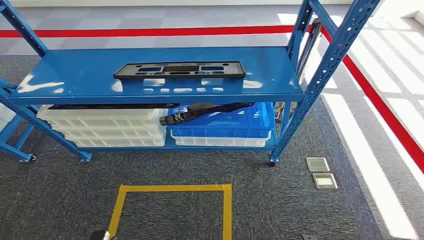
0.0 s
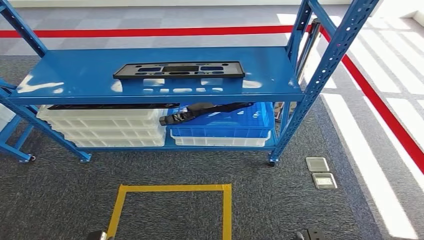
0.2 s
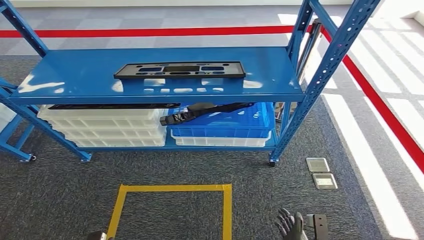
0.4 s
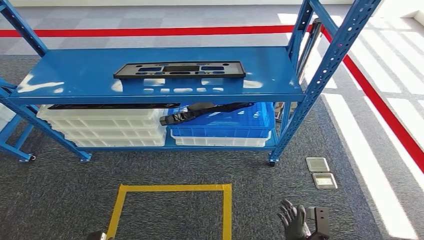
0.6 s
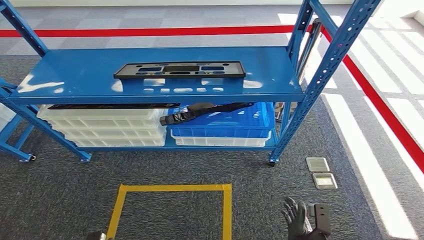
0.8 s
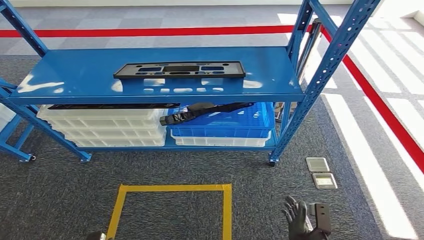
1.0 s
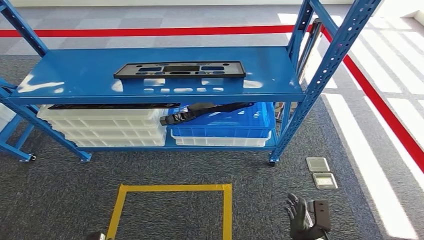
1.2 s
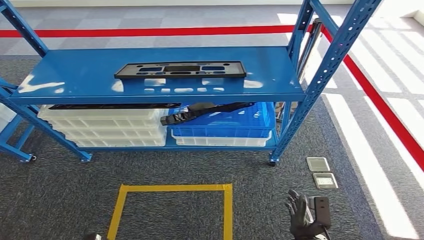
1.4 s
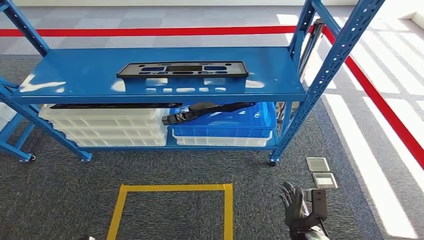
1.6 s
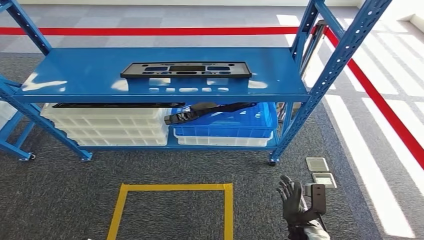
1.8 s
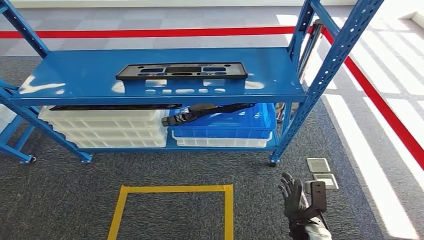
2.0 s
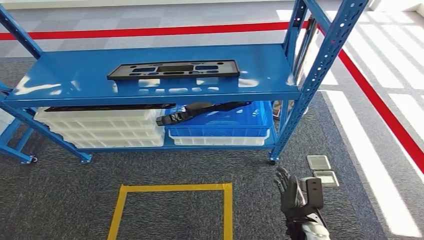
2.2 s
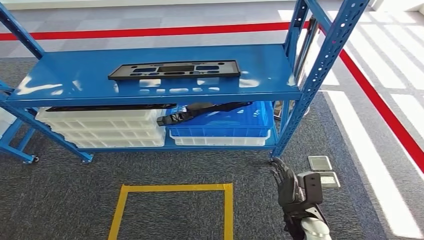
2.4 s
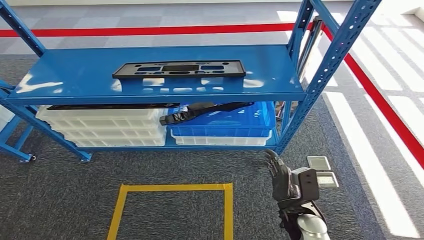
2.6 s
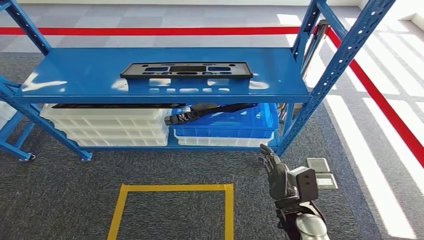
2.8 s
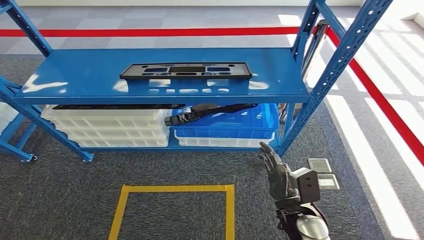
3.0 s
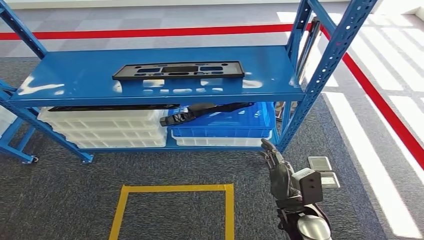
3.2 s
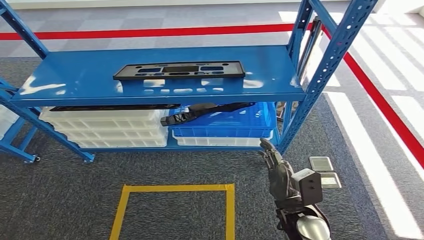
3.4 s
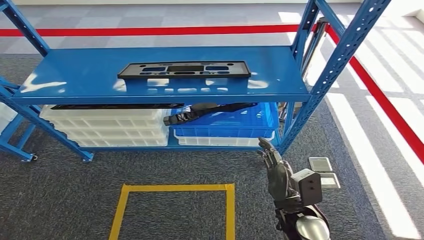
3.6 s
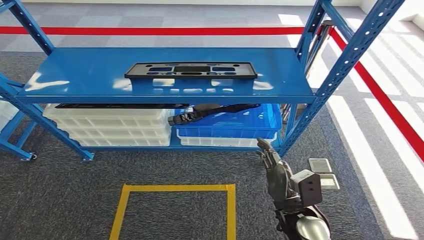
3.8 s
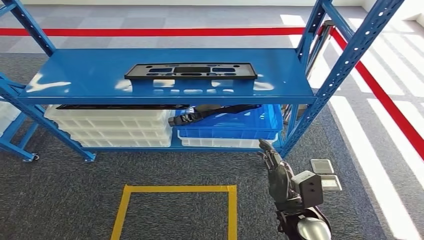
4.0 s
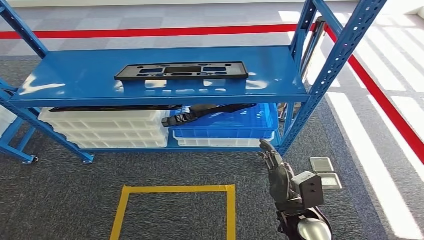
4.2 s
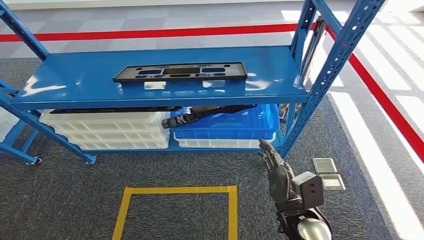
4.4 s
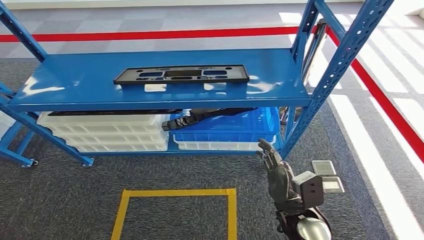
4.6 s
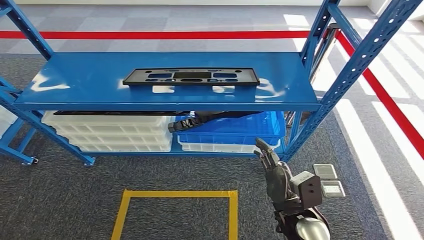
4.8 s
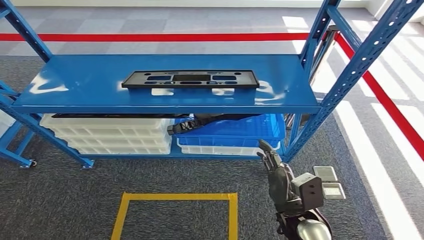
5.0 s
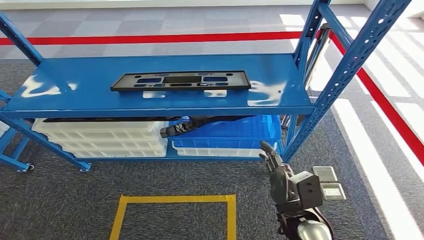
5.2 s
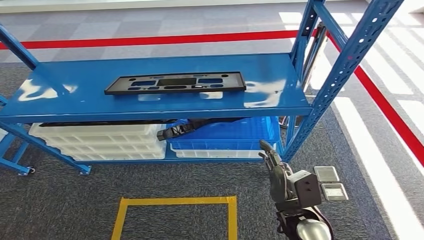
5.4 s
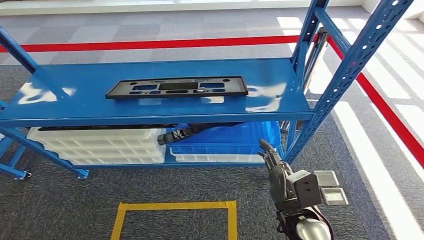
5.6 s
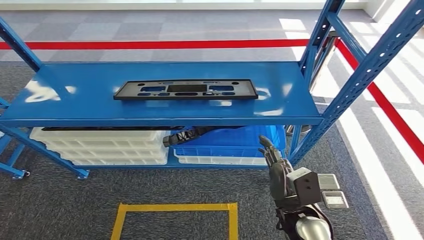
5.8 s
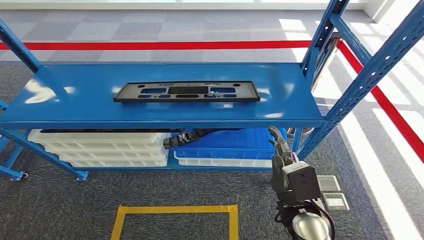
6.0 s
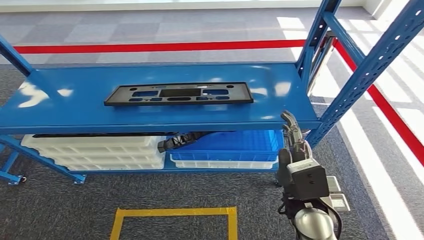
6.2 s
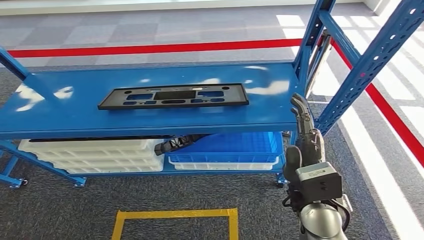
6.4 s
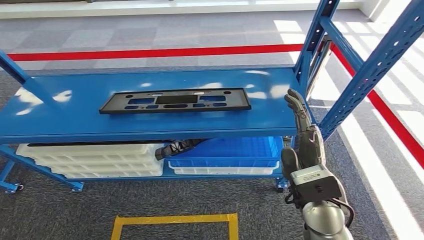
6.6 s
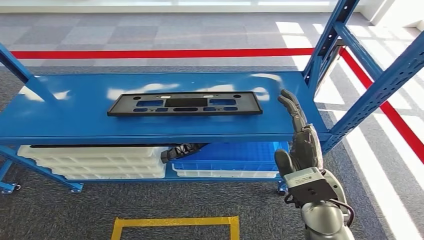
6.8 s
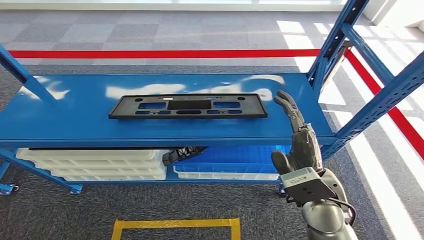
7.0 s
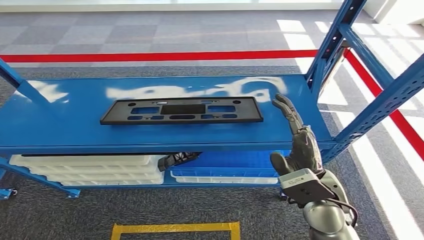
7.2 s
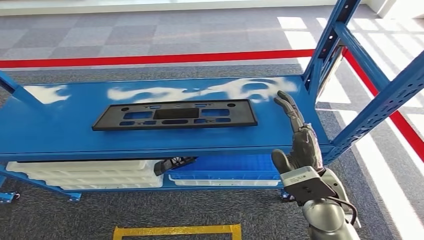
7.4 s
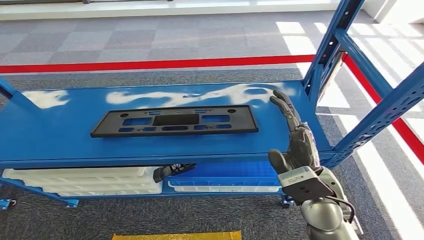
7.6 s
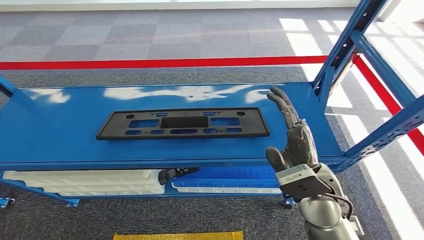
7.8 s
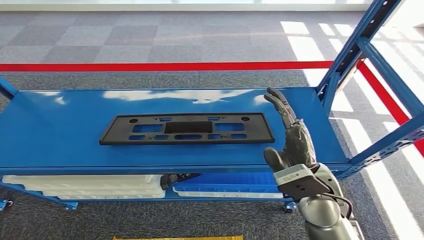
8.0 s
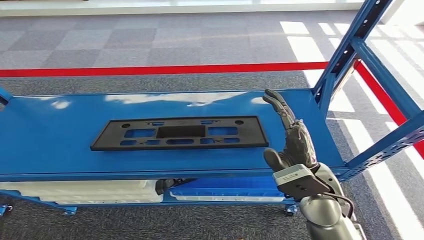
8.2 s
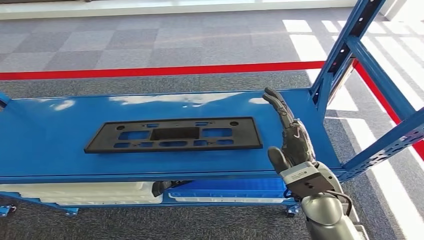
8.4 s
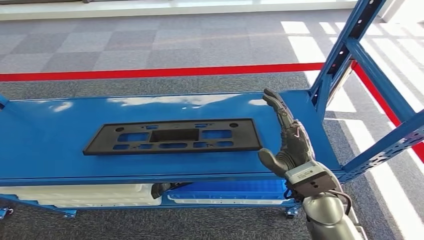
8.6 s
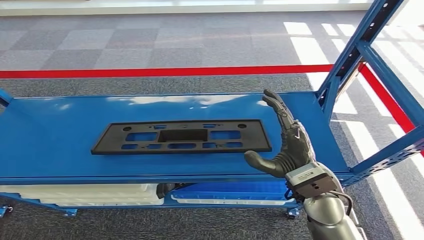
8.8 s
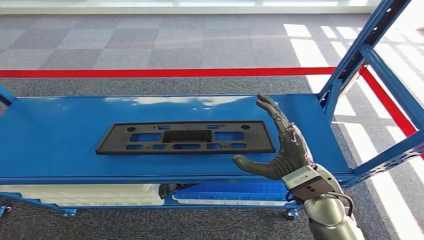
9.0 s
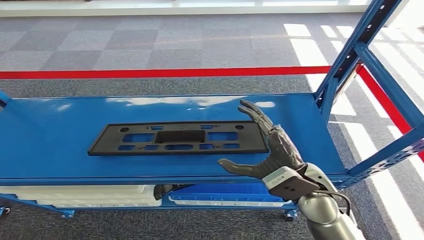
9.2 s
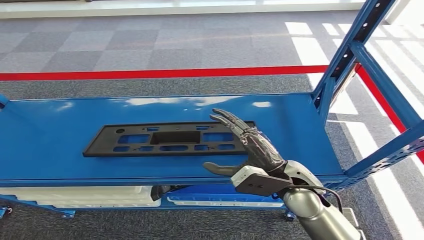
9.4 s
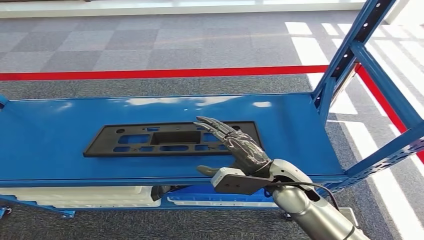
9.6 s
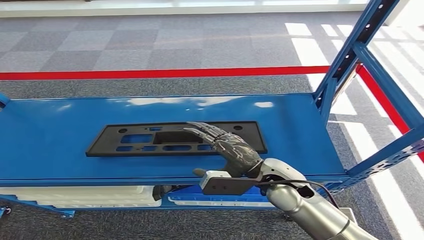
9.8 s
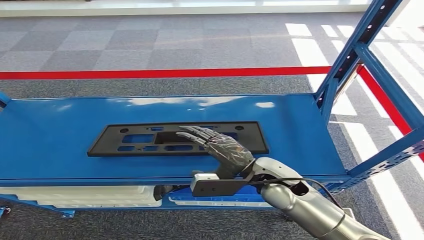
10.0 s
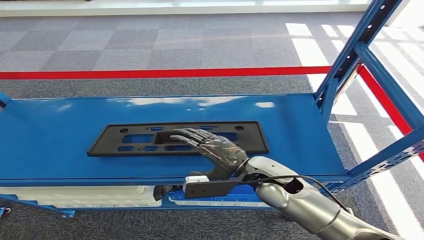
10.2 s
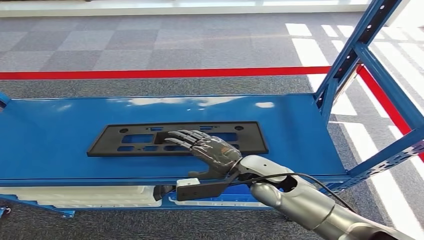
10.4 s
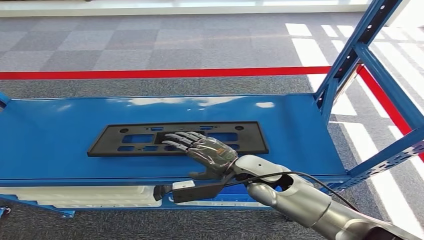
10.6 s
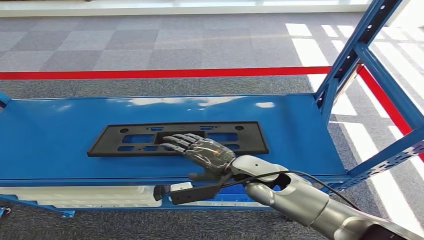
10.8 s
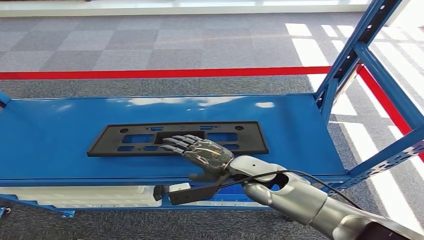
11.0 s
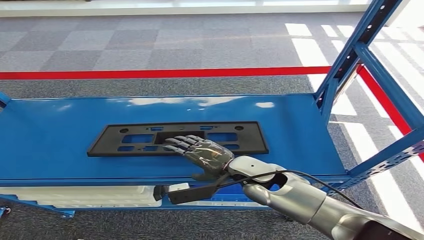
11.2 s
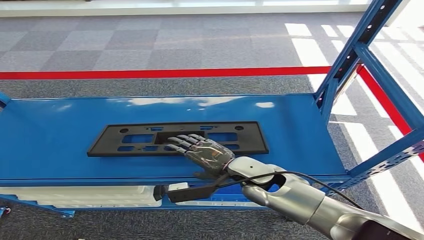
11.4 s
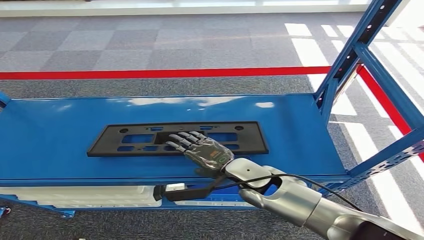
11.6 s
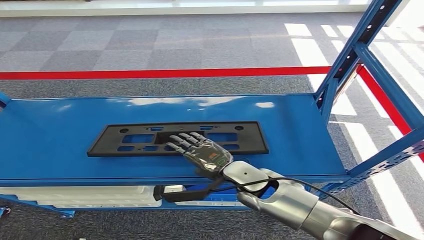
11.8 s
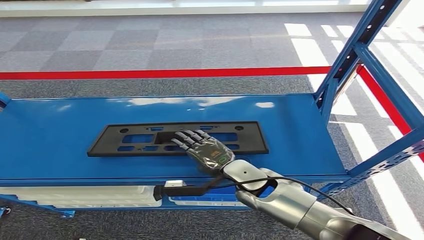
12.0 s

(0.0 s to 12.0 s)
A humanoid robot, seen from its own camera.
1.6 s - 3.0 s: The right hand goes about 15 cm upward.

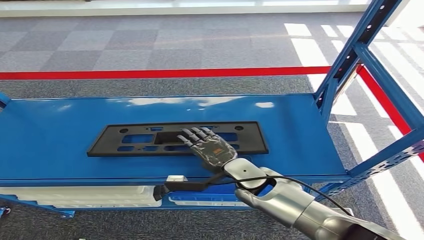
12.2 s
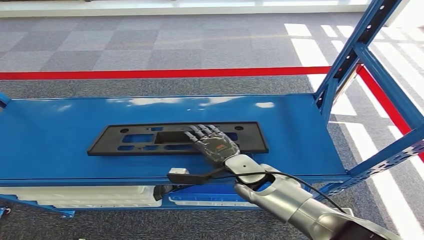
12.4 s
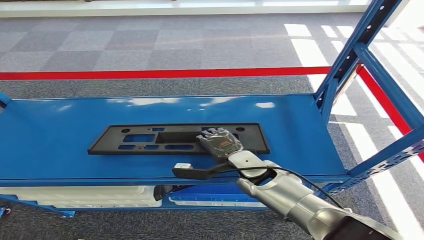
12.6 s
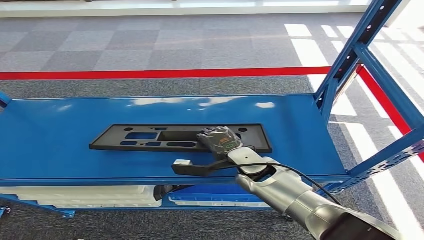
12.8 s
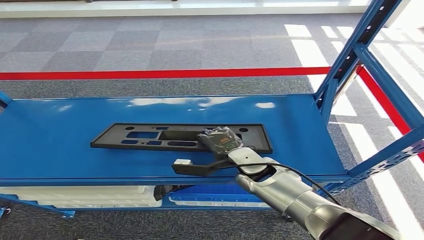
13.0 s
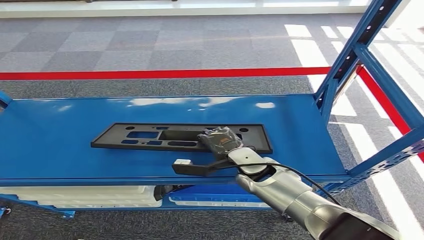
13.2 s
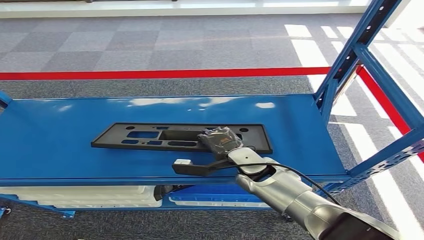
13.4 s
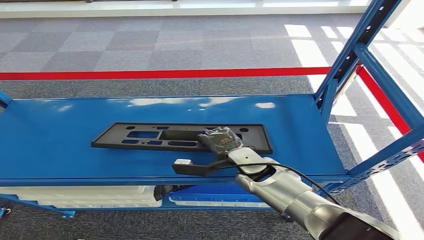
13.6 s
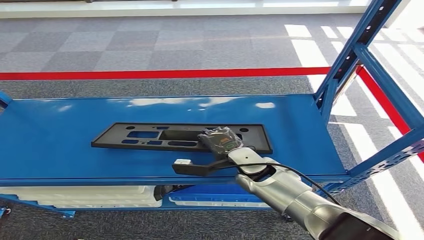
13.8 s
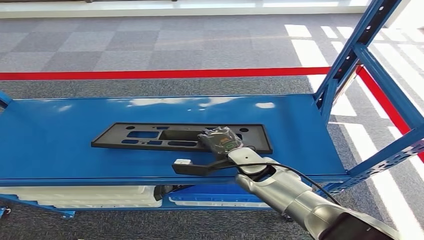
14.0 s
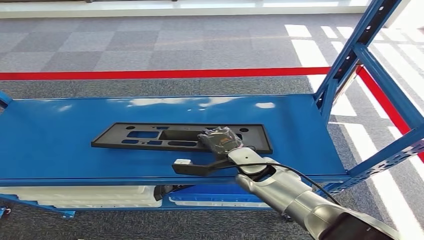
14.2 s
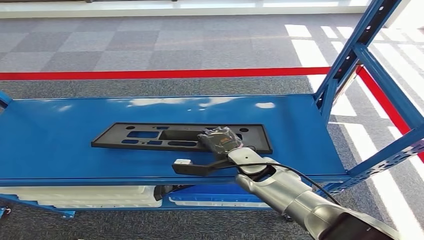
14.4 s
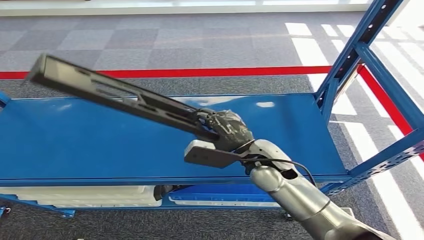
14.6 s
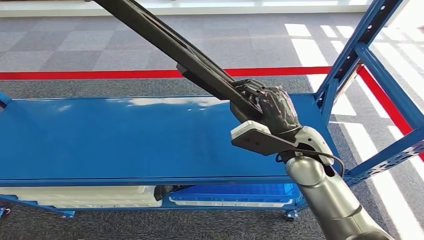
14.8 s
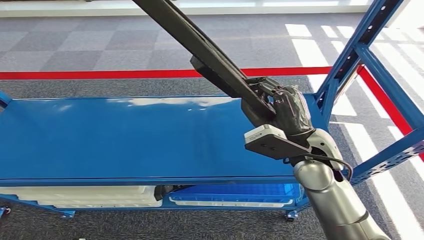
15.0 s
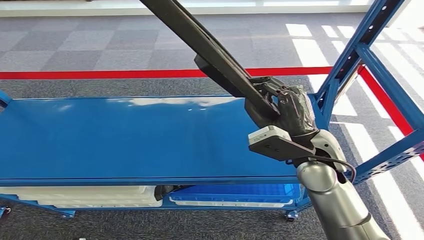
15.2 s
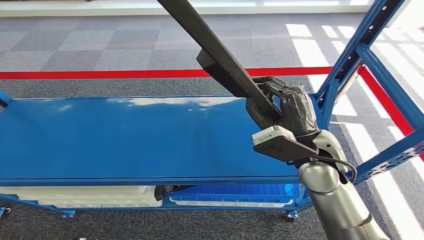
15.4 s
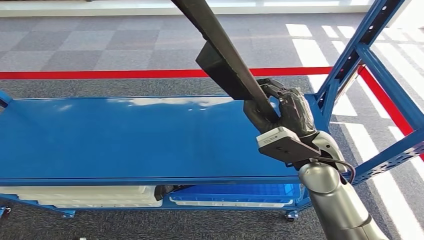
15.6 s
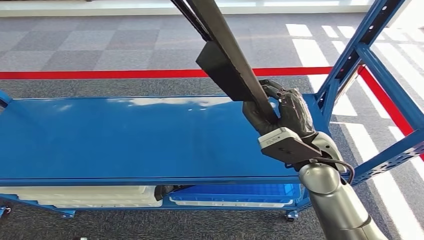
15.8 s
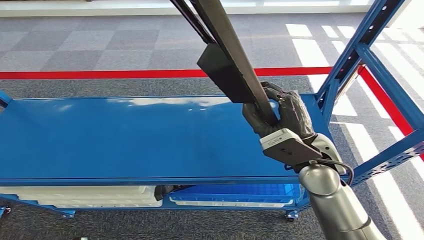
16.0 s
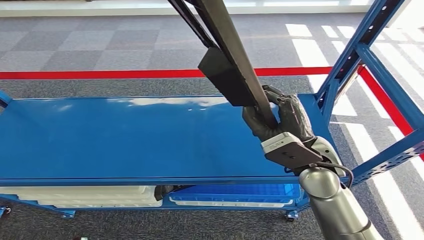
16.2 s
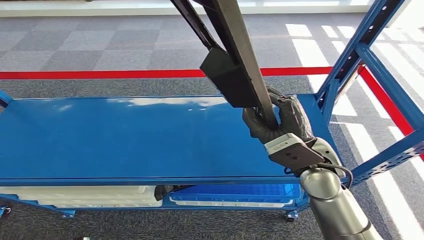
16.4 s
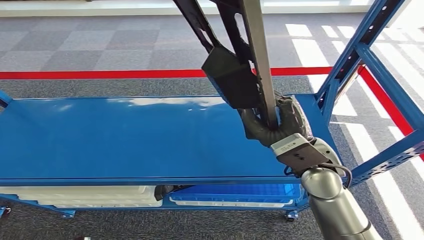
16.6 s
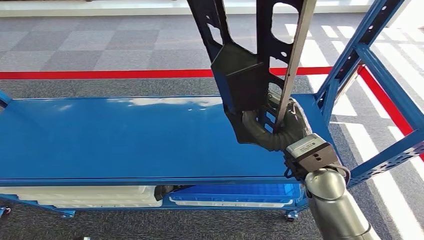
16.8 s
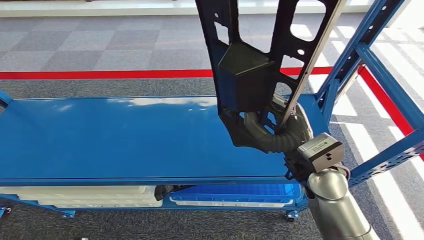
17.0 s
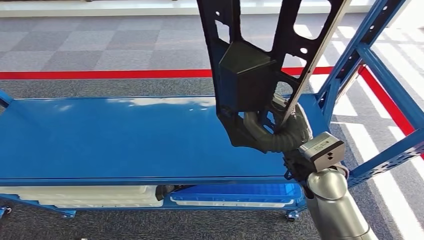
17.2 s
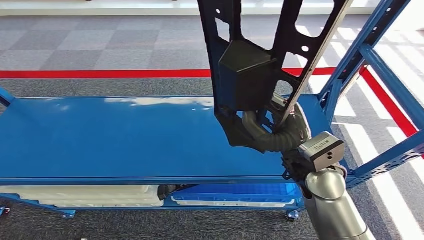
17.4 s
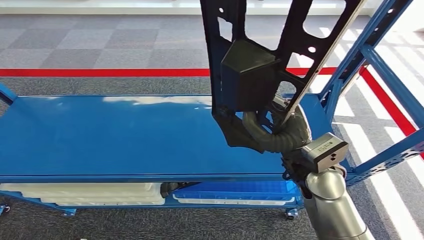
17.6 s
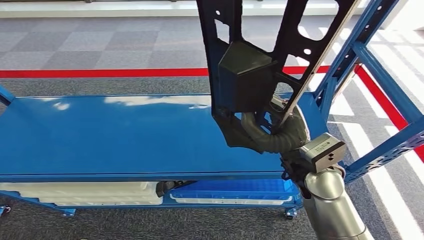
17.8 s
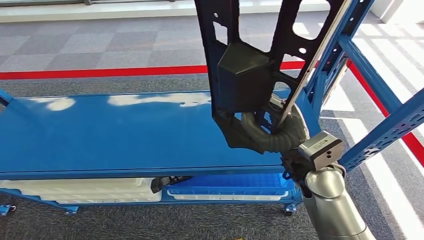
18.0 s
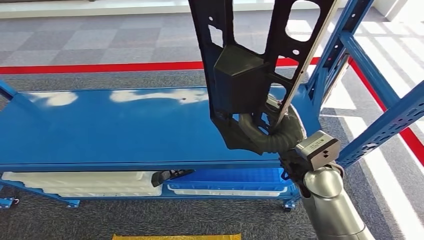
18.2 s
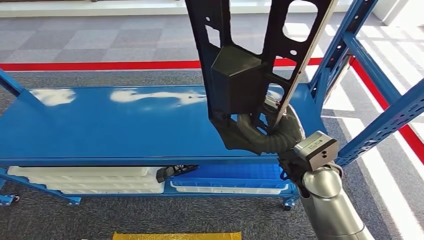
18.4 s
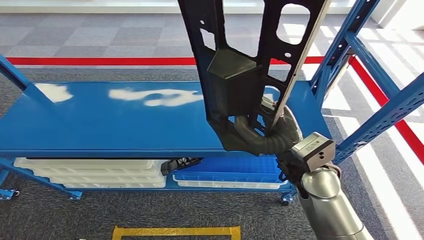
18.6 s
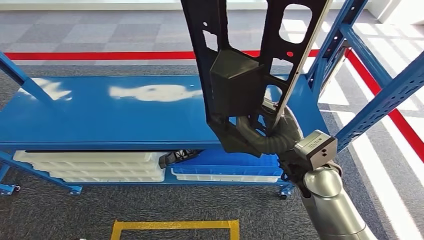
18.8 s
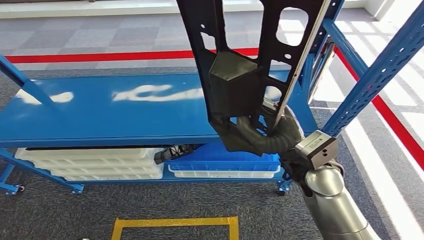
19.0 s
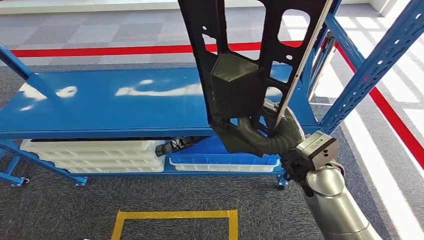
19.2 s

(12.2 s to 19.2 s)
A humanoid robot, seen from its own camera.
Step, 12.2 s - 16.4 s: Pick up the small component from the shelf.
12.2 s - 13.6 s: The hands make only small movements.
15.0 s - 16.4 s: The hands stay close to where they were, moving slightly.
